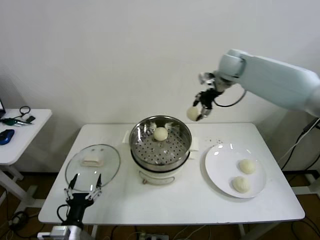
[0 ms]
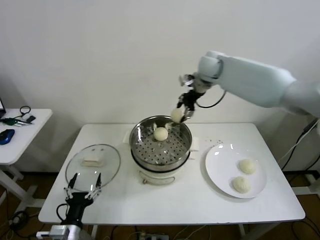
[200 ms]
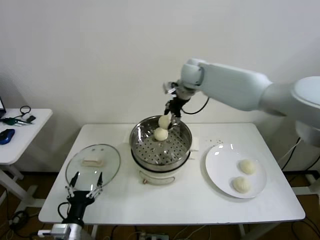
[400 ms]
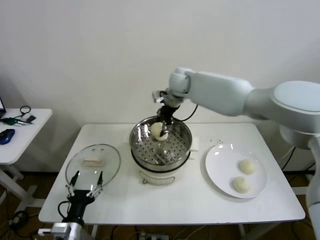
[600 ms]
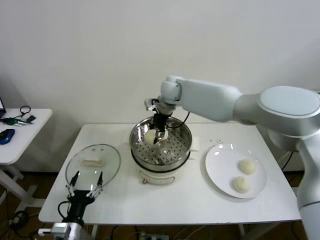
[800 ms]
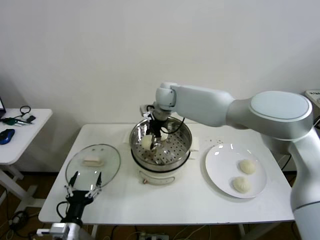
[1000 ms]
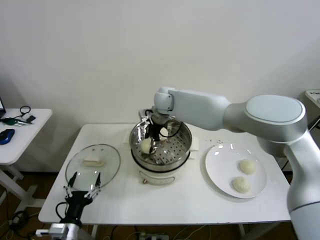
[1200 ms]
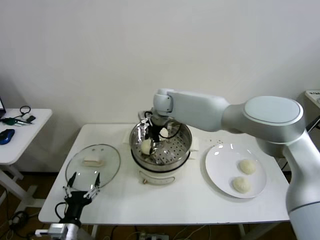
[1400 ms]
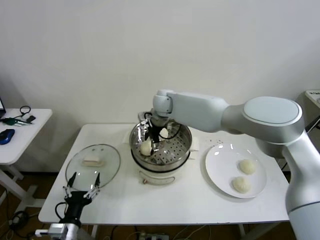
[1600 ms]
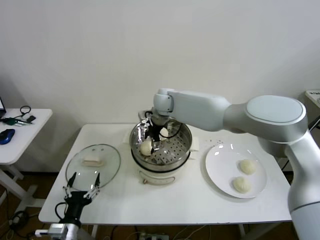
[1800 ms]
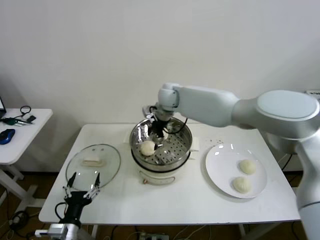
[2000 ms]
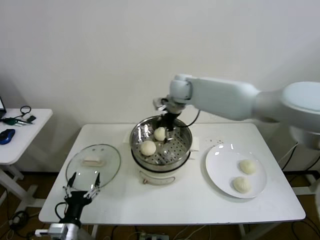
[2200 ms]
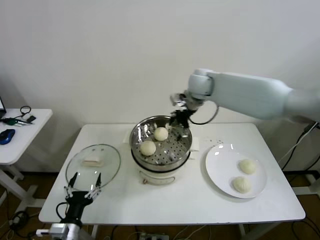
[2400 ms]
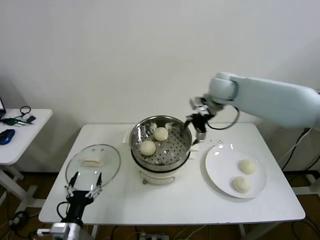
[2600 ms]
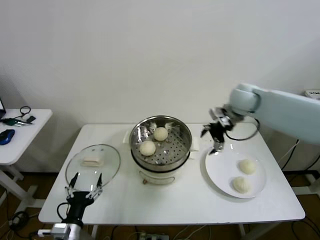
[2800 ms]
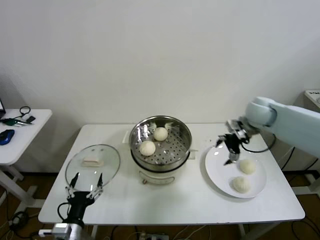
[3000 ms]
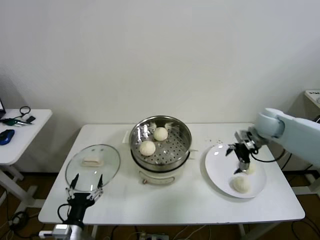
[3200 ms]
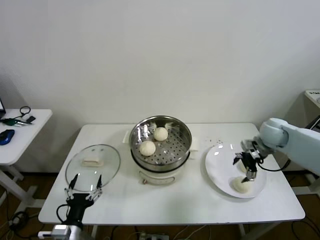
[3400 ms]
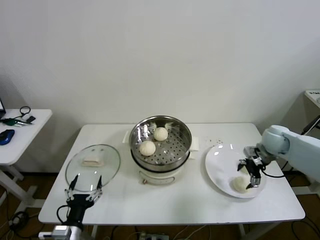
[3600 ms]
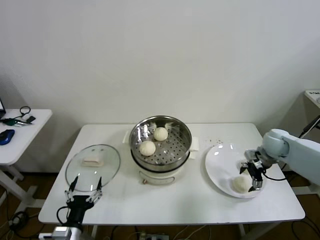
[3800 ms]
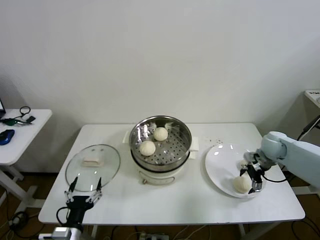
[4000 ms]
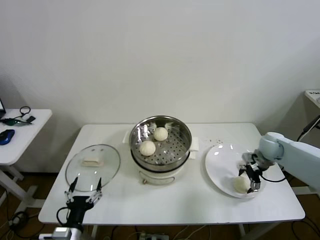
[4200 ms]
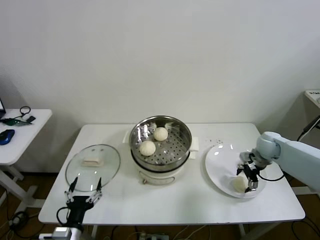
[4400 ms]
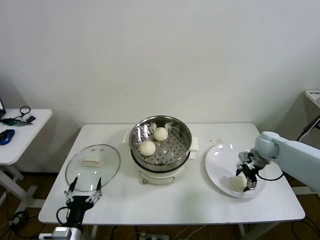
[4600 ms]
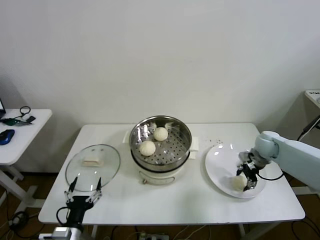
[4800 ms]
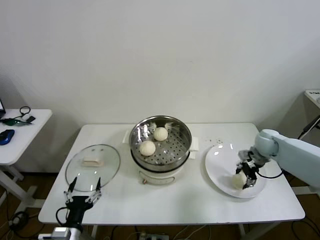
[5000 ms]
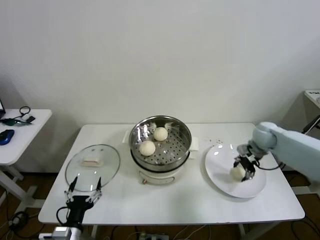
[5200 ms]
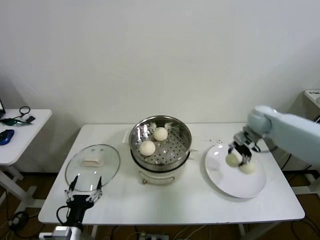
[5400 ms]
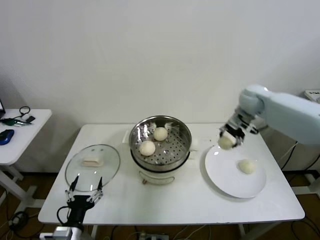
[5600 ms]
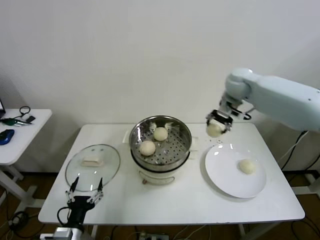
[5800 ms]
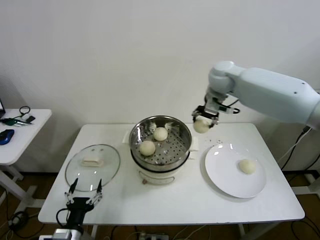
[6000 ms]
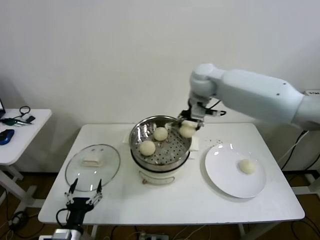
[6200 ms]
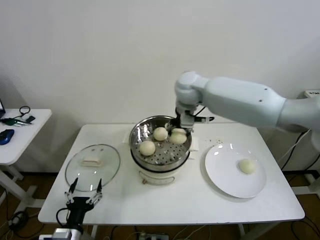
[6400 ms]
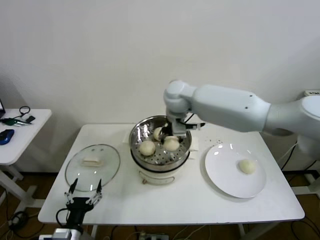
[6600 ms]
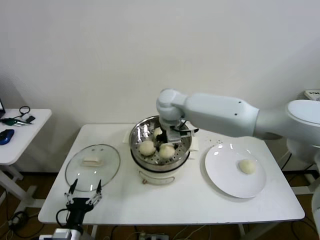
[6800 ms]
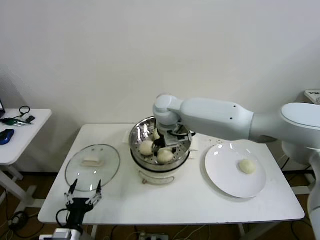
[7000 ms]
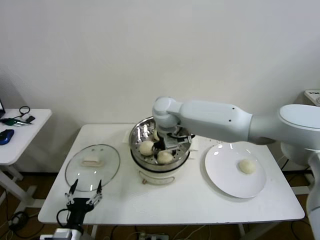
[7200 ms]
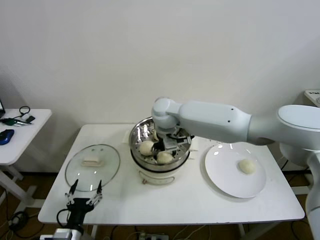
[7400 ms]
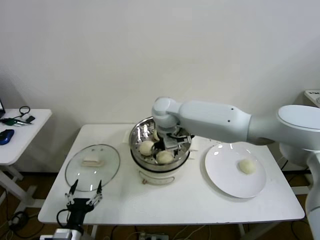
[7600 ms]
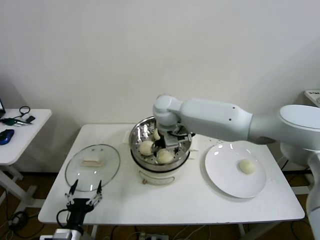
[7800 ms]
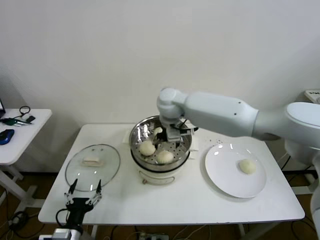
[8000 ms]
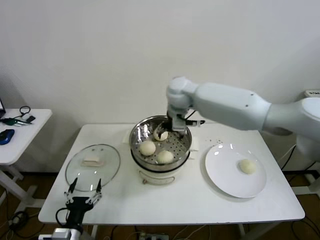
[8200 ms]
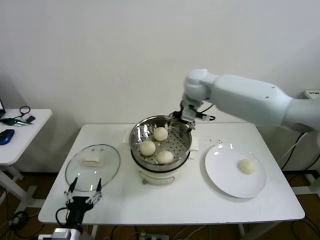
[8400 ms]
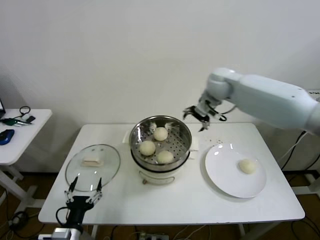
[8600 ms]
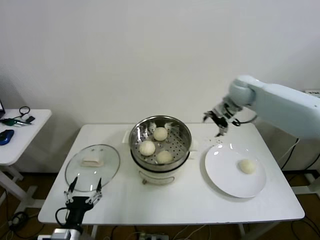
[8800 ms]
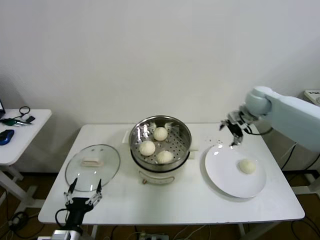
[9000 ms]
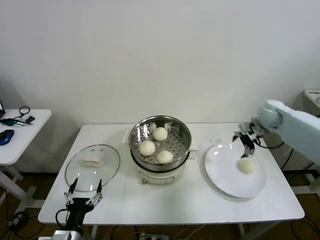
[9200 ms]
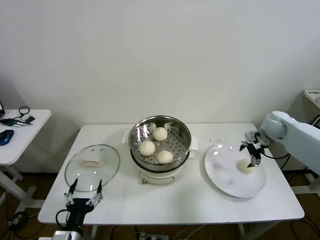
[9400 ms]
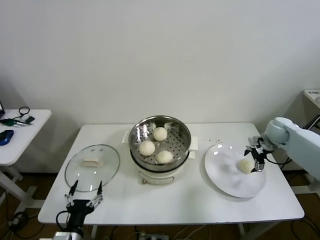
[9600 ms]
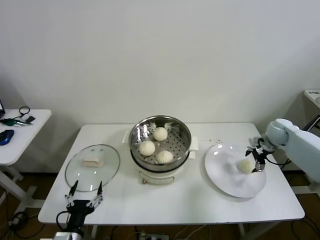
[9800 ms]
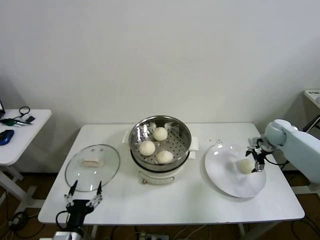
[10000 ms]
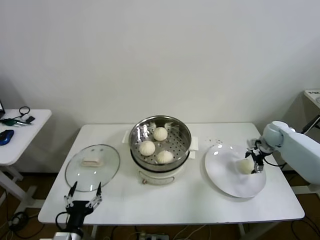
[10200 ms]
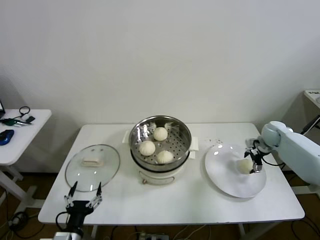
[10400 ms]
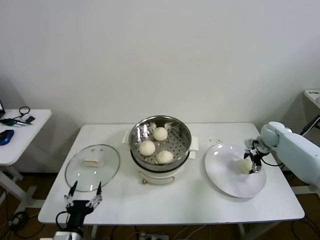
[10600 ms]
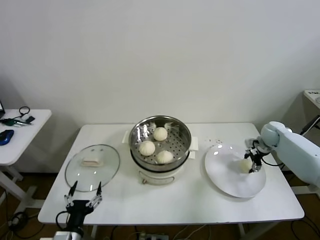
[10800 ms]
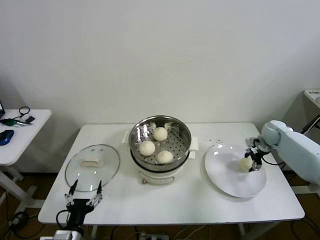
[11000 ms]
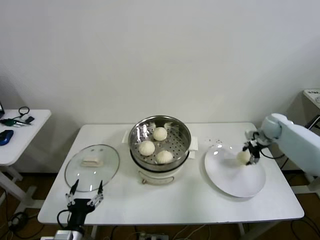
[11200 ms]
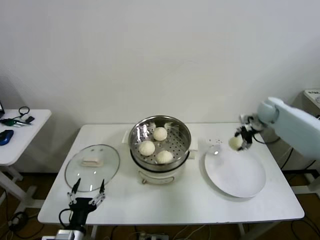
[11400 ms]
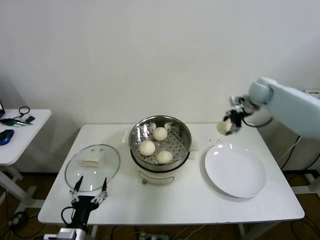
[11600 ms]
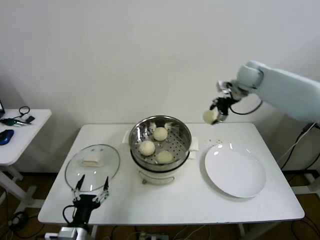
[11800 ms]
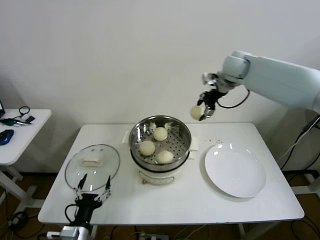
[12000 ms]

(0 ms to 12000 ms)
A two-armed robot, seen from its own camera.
Step, 0 ms - 1600 ms: Place the baozi on the steamer with right gripper.
Step, 1800 ms - 4600 ms: Grasp the baozi in the plate with right gripper.
Step, 4800 ms - 7800 ms: Place the baozi on the steamer with right gripper.
Step, 8000 ms - 10800 ms: Grasp the baozi in the plate with right gripper.
0 ms - 1600 ms: The right gripper is displaced to the left and downward by about 25 cm, and opens its fingers.
1600 ms - 3000 ms: The right gripper moves to the right, approximately 35 cm.
3000 ms - 4400 ms: The right gripper shifts roughly 15 cm downward and to the right.
4400 ms - 6000 ms: The right gripper goes approximately 35 cm upward and to the left, and closes up.
6000 ms - 7600 ms: The right gripper is displaced to the left and downward by some 20 cm, and opens.
7600 ms - 9000 ms: The right gripper shifts about 35 cm to the right.
9000 ms - 10400 ms: The right gripper travels downward and to the right by roughly 15 cm.
10400 ms - 12000 ms: The right gripper heads upward and to the left, covering some 35 cm, and closes its fingers.

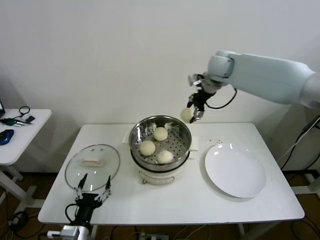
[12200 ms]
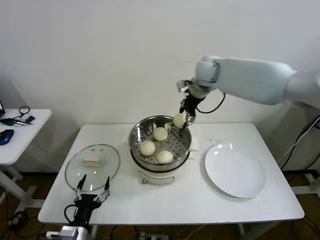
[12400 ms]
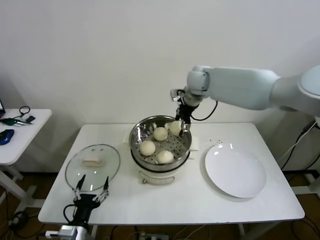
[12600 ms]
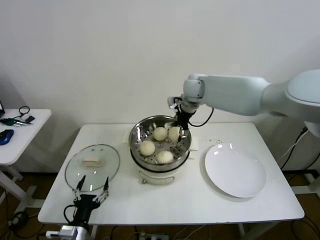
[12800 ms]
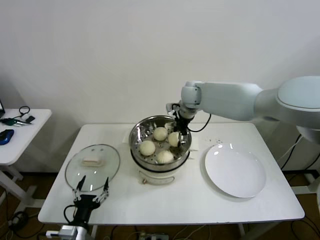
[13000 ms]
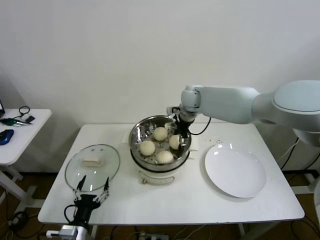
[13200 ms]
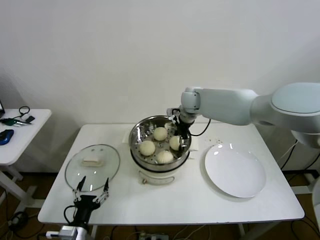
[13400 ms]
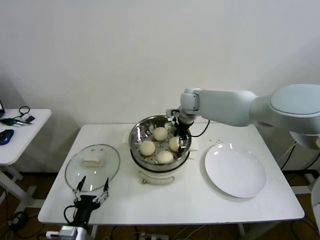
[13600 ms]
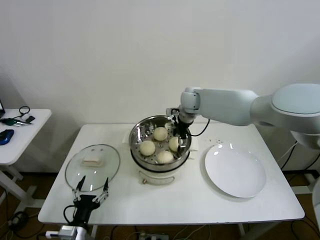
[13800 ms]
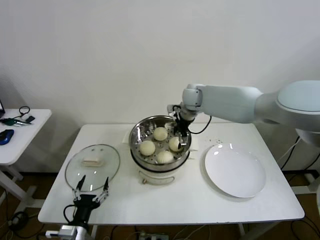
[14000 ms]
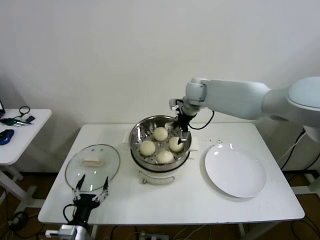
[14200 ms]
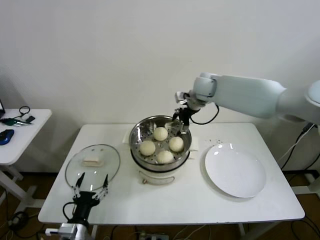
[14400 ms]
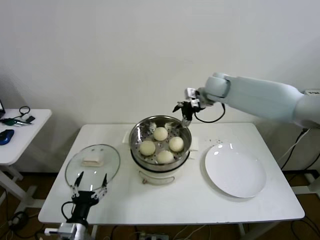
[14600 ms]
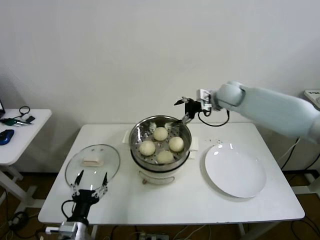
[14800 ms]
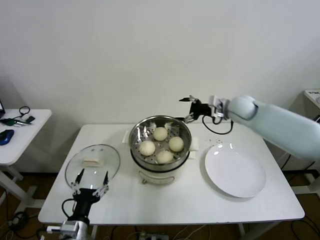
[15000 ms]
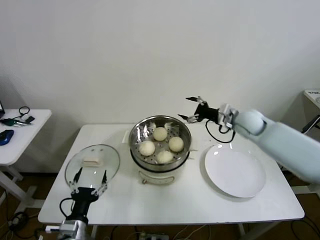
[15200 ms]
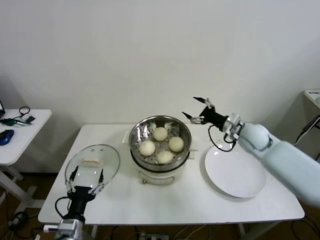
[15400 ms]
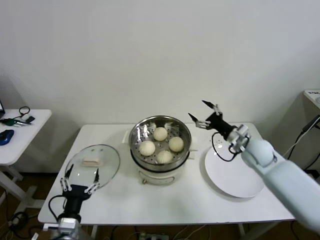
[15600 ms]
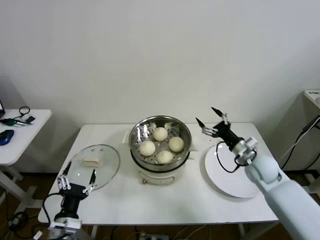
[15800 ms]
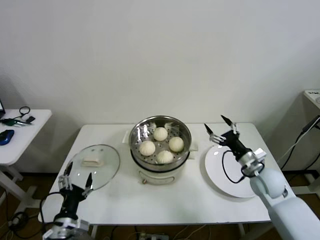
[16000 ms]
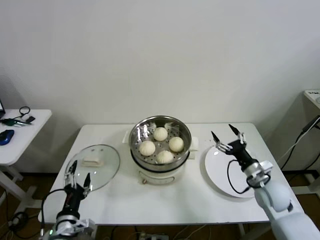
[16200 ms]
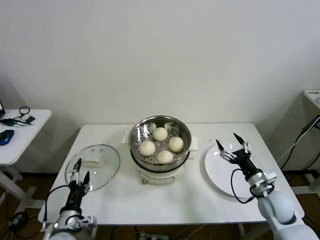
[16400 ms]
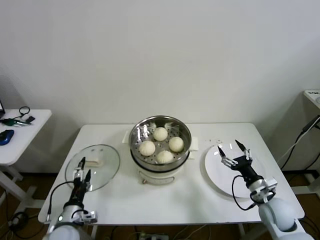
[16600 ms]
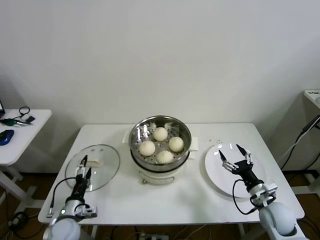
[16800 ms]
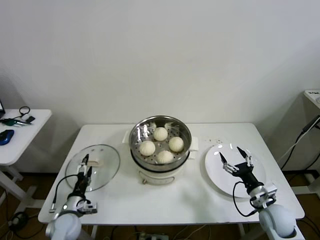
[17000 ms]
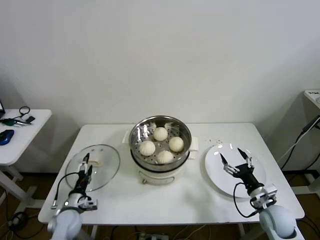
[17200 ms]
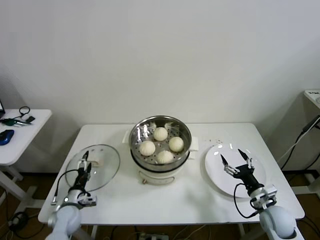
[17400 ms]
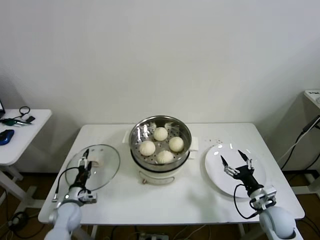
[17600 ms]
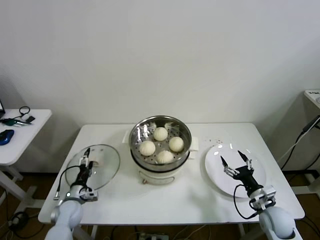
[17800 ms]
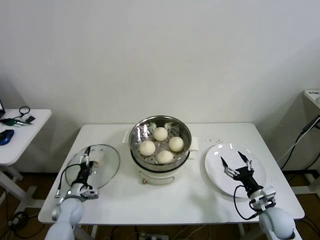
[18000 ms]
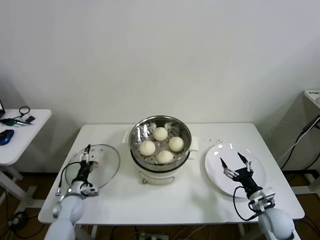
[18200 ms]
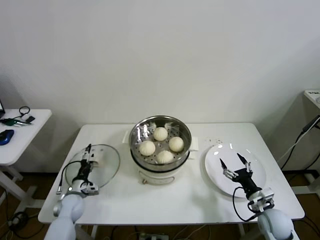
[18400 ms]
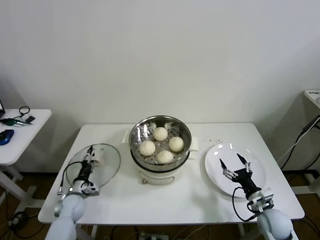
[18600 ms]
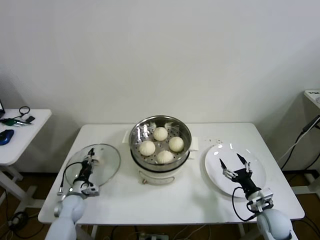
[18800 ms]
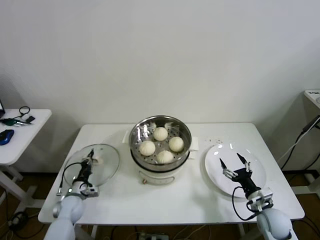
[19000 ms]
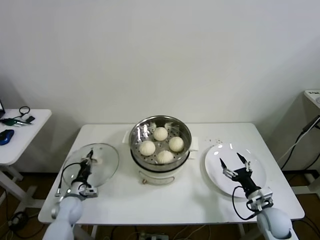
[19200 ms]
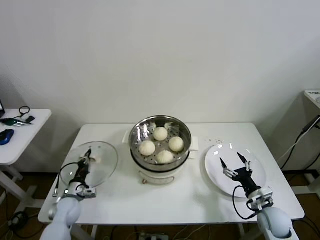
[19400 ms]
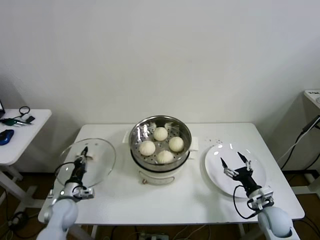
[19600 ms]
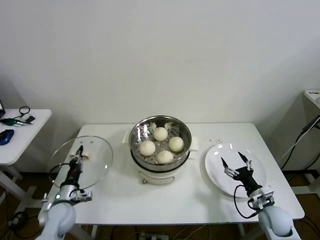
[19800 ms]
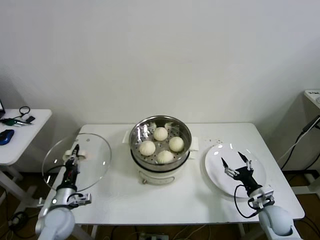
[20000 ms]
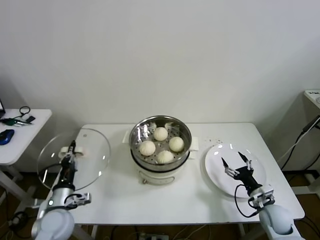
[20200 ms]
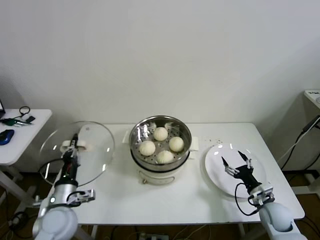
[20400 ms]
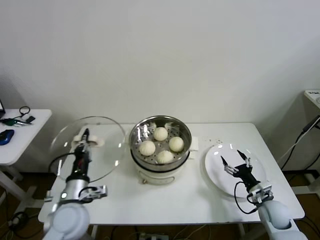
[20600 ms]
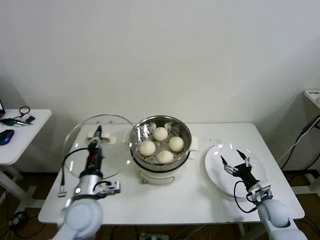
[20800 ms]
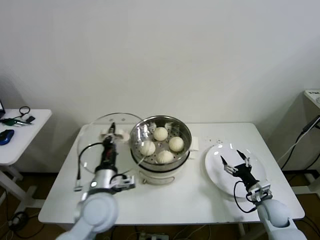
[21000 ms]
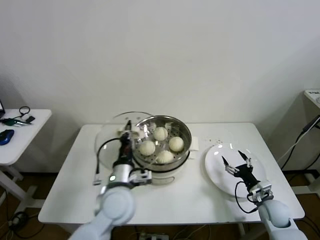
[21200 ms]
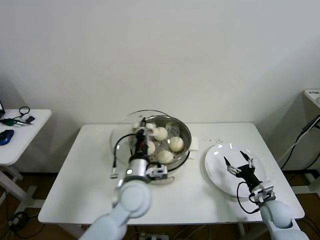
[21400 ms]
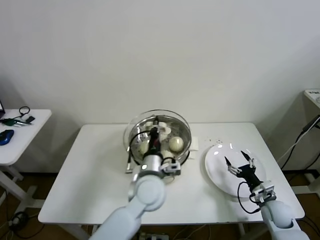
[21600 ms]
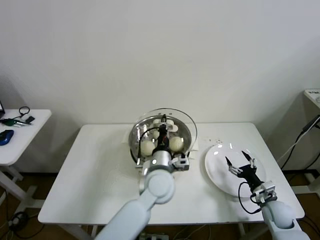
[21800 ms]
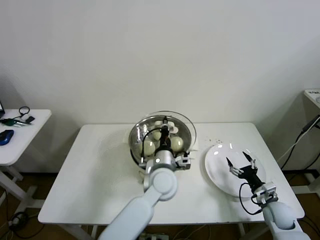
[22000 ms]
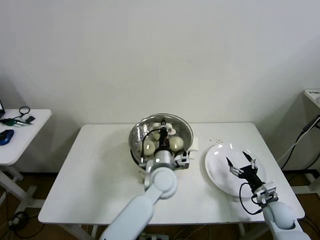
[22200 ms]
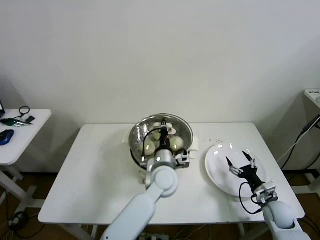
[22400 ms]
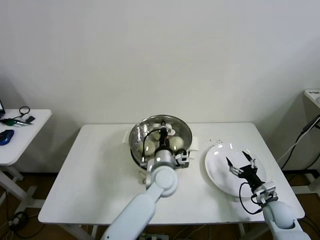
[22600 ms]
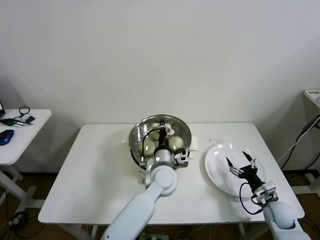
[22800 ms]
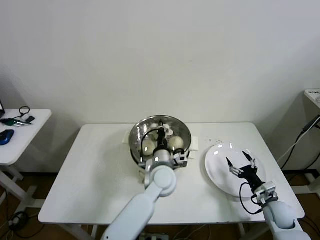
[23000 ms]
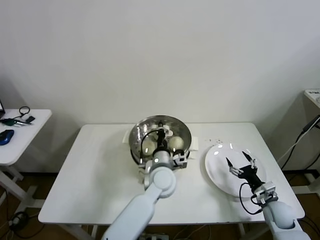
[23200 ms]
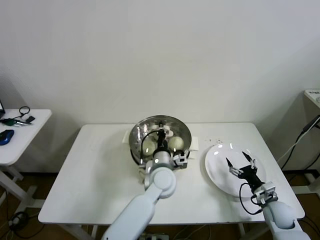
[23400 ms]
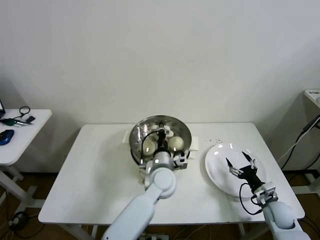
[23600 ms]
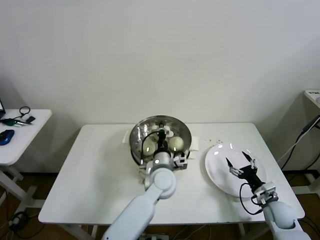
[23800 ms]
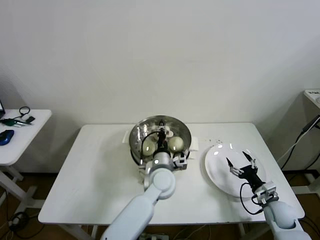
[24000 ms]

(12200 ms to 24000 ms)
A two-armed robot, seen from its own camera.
Step, 12200 ms - 13800 ms: Place the baozi on the steamer with right gripper.
Step, 14000 ms - 19000 ms: Grasp the pot lid with left gripper.
12200 ms - 13600 ms: The right gripper is displaced downward and to the left by approximately 15 cm, and opens its fingers.
13600 ms - 15200 ms: The right gripper goes some 20 cm to the right and backward.
15200 ms - 16600 ms: The left gripper shifts approximately 5 cm forward, while the right gripper is displaced backward and downward by approximately 30 cm.
16600 ms - 18200 ms: The left gripper moves forward, downward and to the left, roughly 15 cm. Meanwhile the right gripper shifts by roughly 5 cm.
18200 ms - 19600 ms: The left gripper closes.
19600 ms - 21000 ms: The left gripper shifts approximately 25 cm upward and to the right.
21000 ms - 22600 ms: The left gripper goes about 20 cm to the right and forward.
22600 ms - 24000 ms: The grippers move only a little.
